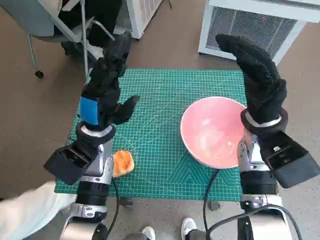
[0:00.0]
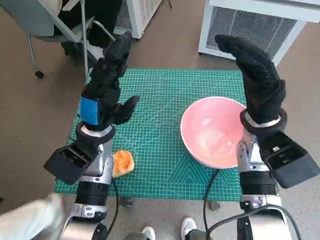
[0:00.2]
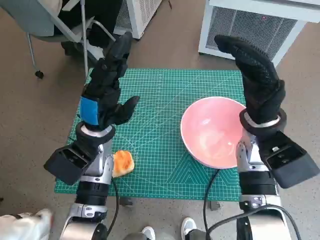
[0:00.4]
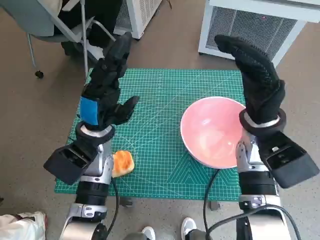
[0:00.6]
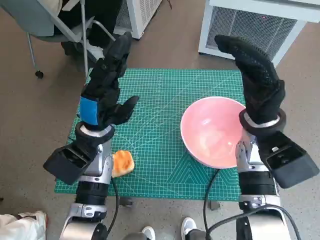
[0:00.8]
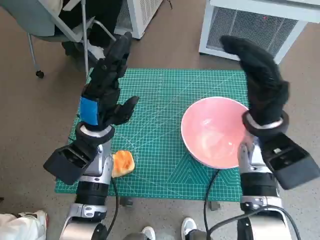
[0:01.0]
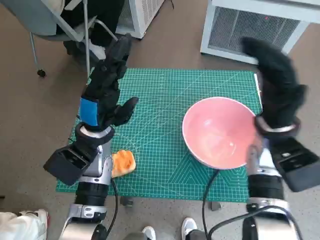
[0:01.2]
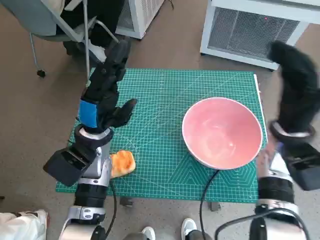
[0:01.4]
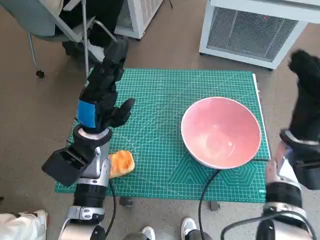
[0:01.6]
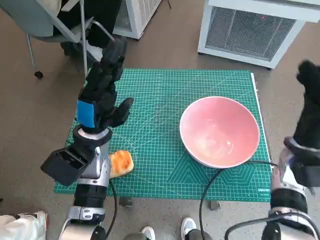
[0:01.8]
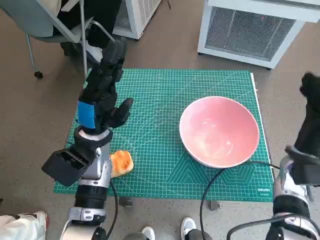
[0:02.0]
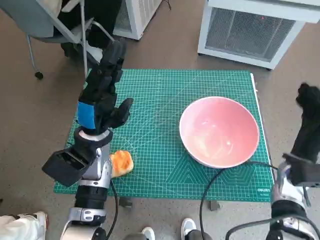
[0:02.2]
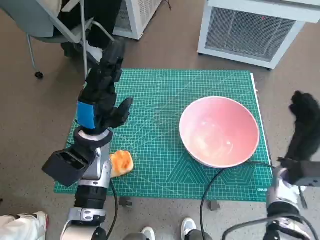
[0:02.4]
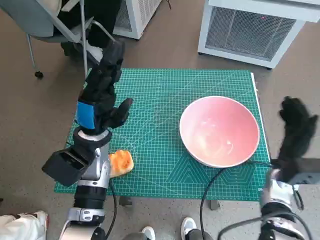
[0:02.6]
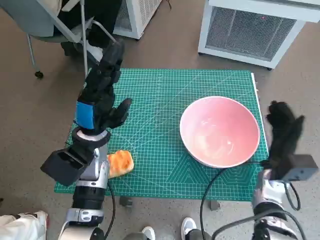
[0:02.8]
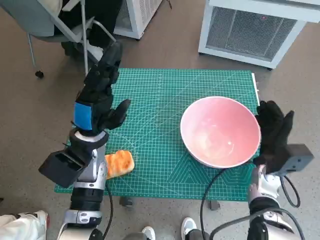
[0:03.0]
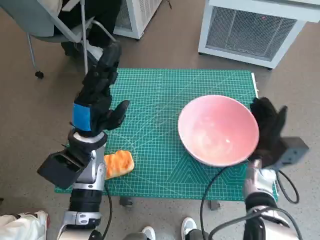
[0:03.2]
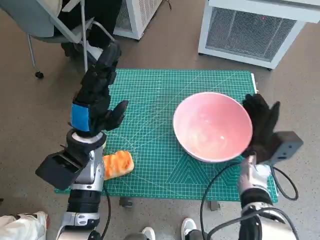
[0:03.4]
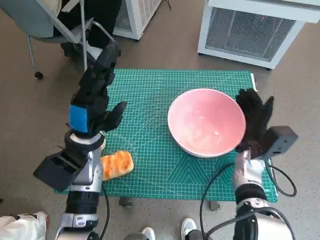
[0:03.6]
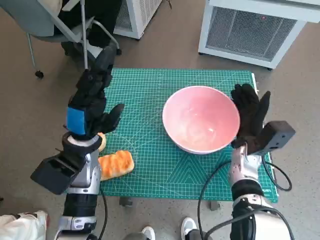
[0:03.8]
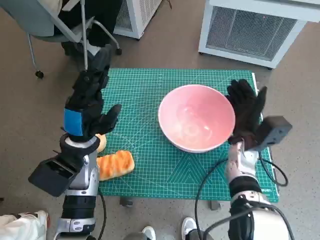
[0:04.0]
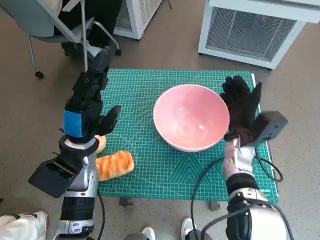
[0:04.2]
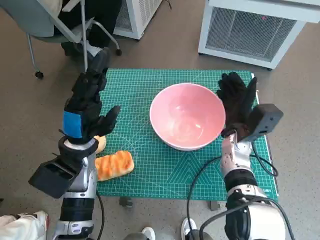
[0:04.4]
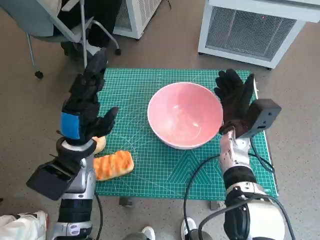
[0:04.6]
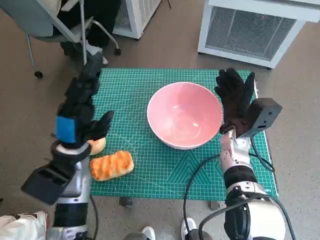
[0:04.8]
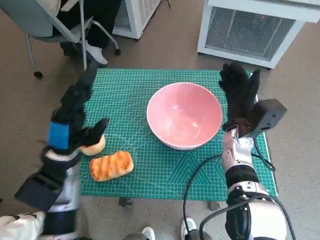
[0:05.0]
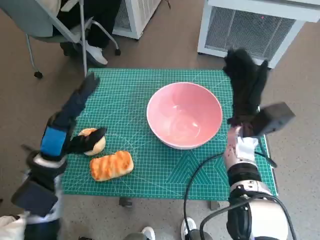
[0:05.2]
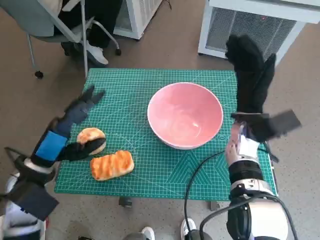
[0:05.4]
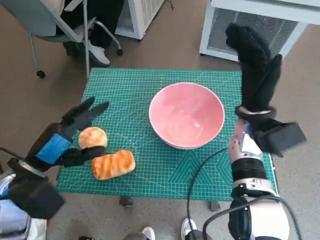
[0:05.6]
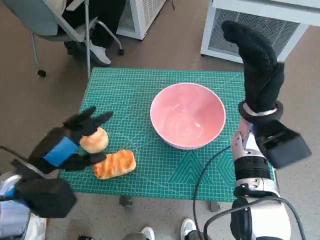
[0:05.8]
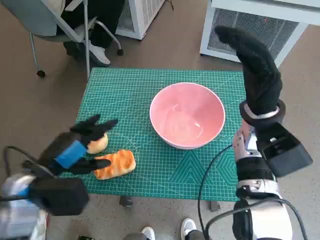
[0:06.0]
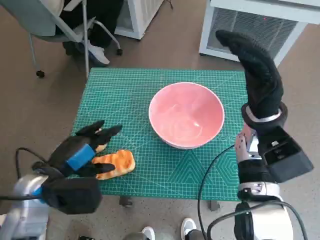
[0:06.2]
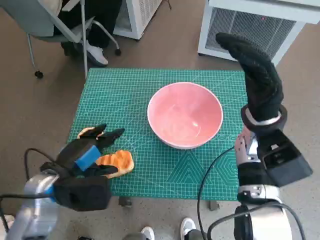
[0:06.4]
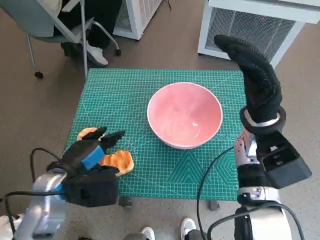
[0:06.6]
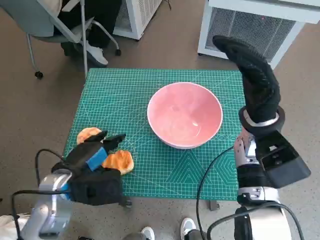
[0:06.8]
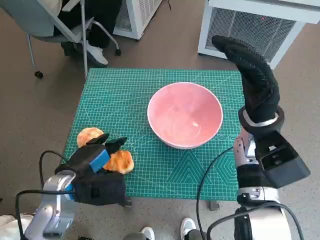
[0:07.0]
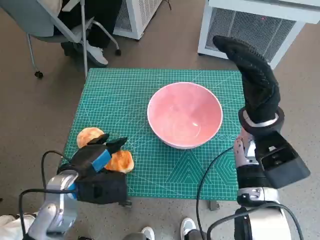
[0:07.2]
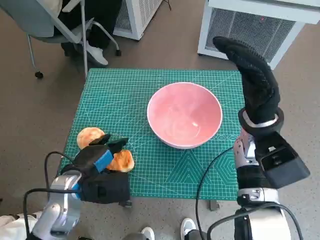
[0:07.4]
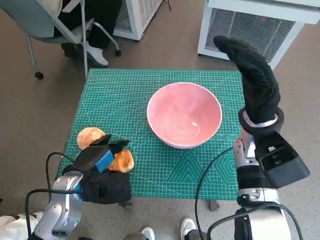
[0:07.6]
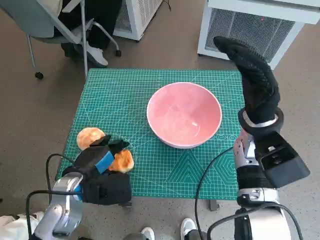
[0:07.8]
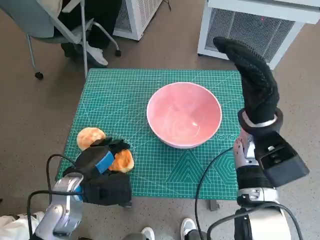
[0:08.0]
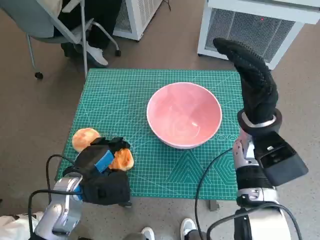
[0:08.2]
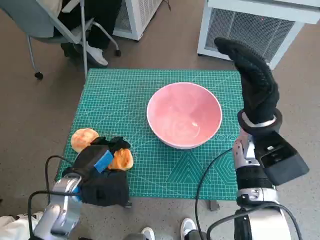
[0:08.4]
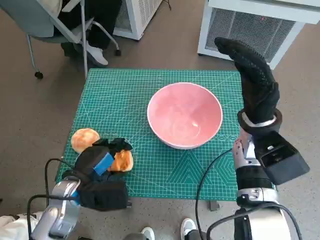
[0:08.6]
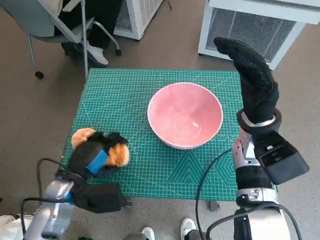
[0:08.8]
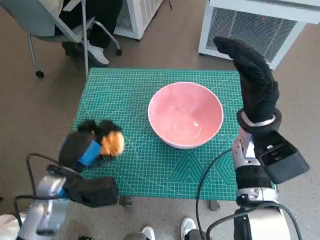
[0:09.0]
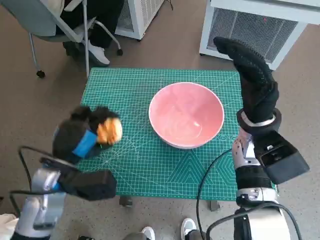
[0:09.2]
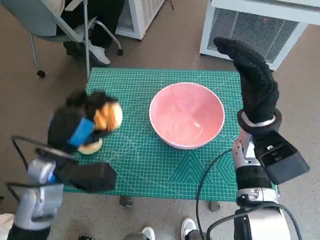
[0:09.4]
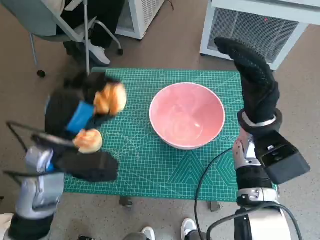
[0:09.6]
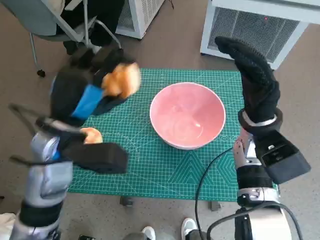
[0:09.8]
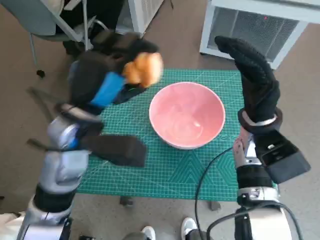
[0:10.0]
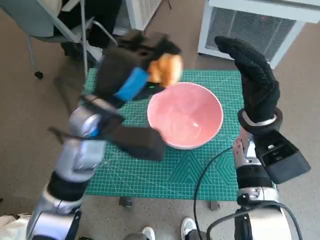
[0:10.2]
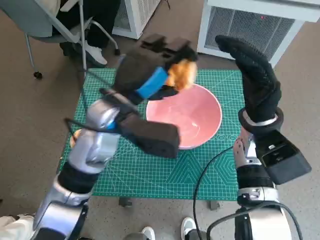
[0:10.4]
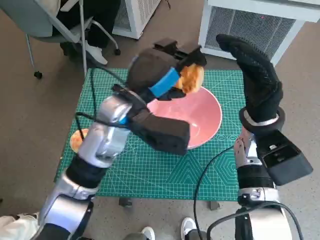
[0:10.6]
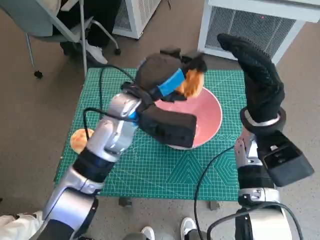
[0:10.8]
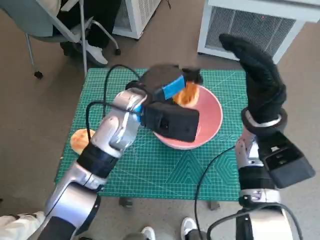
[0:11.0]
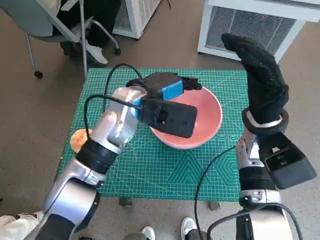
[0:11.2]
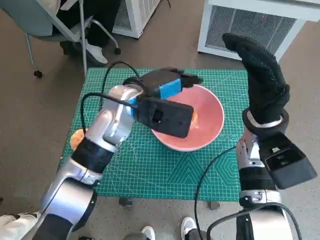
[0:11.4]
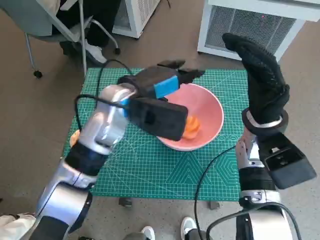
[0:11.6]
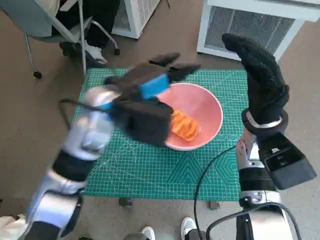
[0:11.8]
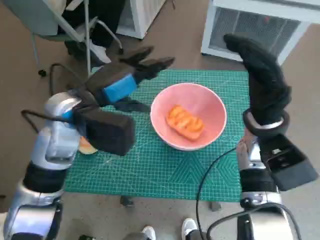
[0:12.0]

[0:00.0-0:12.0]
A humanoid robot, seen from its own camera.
Task of the whole recording: Push the bowl to the center of the table and put the bread into the bowl.
Step, 0:00.0 to 0:05.0: Move the pink bowl to the center of table with right hand.
Step, 0:05.2 to 0:08.0: Grasp the long bread with left hand.
Step, 0:08.2 to 0:11.2: Place the long bread in pink bowl with left hand.
0:01.6 to 0:03.0: The right hand travels downward by roughly 10 cm.
0:03.0 to 0:04.4: The right hand is displaced to the left and forward by roughly 10 cm.
0:04.4 to 0:06.0: The right hand is displaced upward by some 10 cm. The left hand heads backward and to the left, covering some 10 cm.
0:06.0 to 0:07.6: The left hand shifts some 5 cm downward.
0:09.0 to 0:10.4: The left hand heads upward, to the right and forward, covering roughly 20 cm.

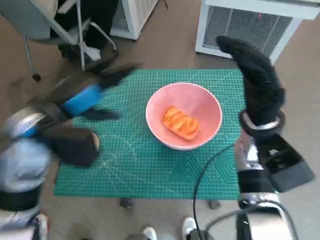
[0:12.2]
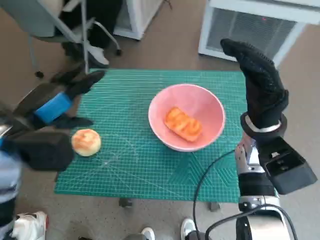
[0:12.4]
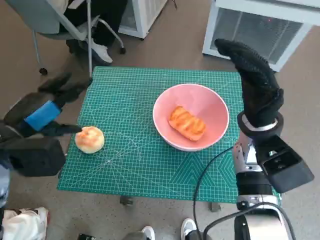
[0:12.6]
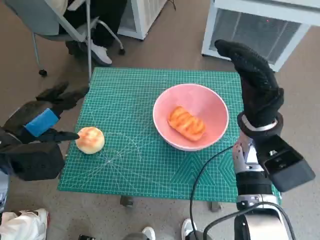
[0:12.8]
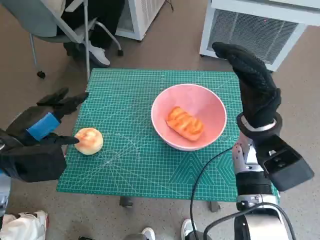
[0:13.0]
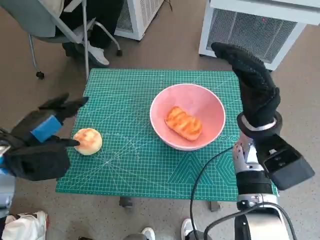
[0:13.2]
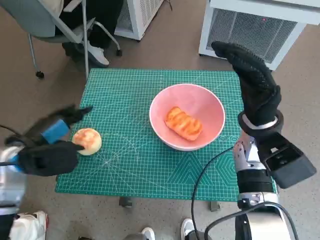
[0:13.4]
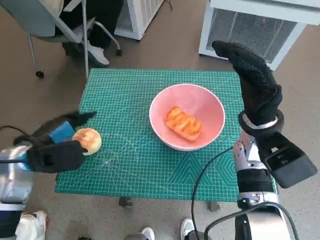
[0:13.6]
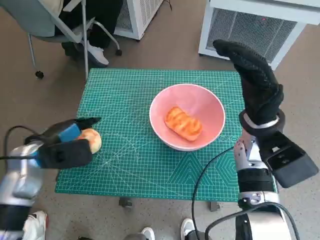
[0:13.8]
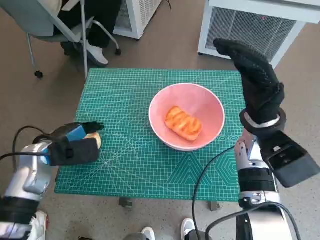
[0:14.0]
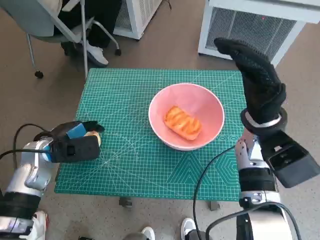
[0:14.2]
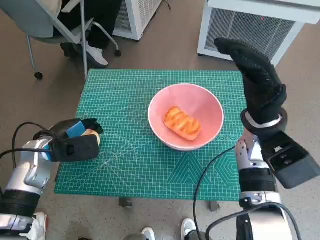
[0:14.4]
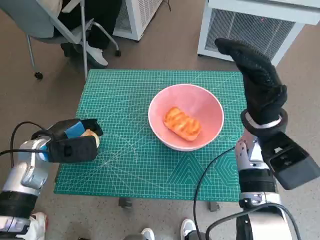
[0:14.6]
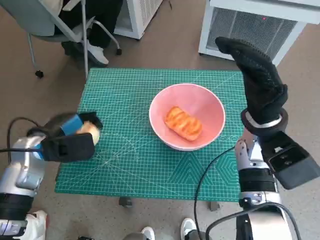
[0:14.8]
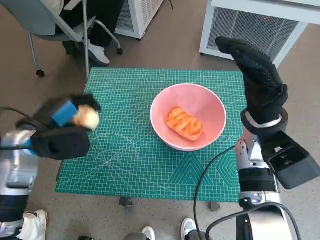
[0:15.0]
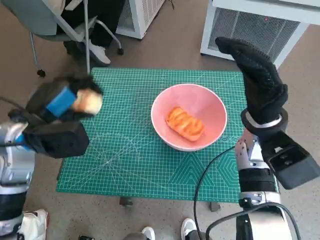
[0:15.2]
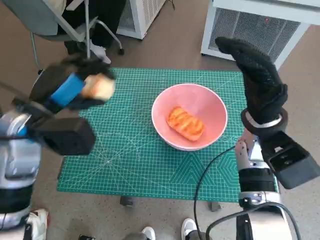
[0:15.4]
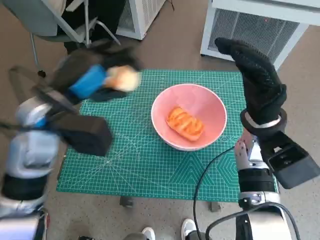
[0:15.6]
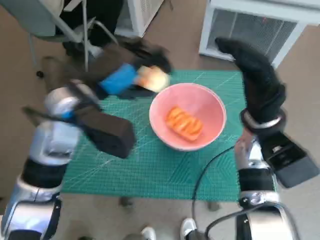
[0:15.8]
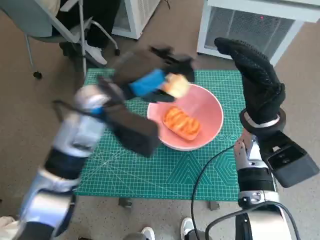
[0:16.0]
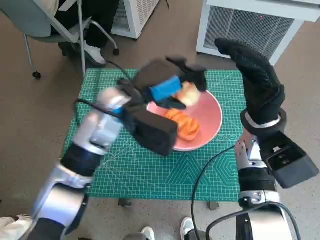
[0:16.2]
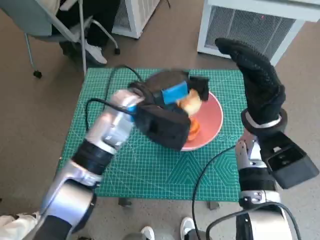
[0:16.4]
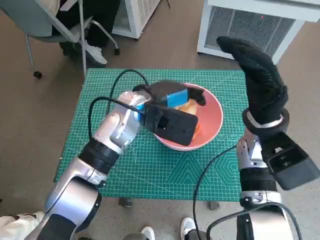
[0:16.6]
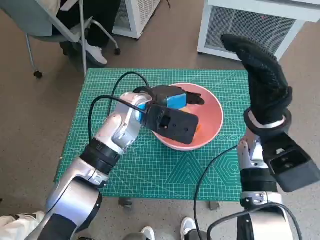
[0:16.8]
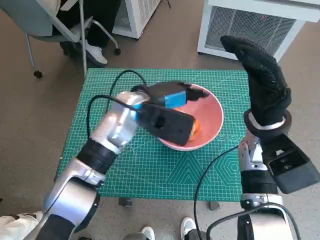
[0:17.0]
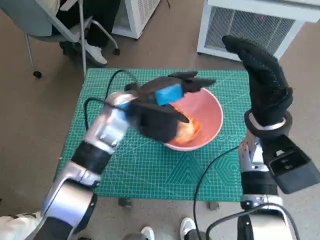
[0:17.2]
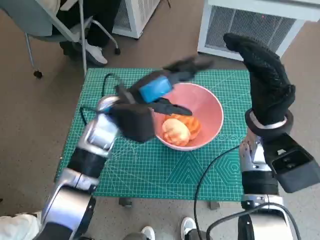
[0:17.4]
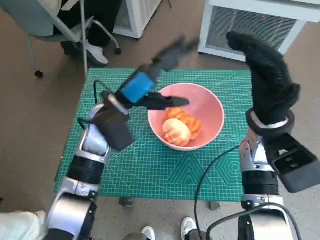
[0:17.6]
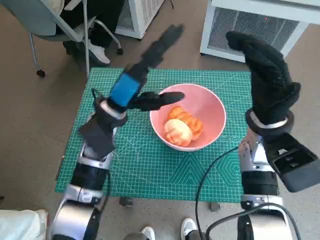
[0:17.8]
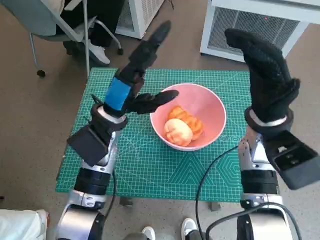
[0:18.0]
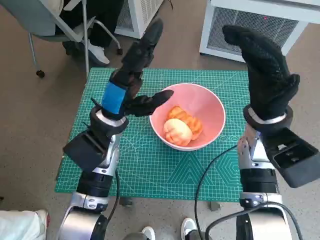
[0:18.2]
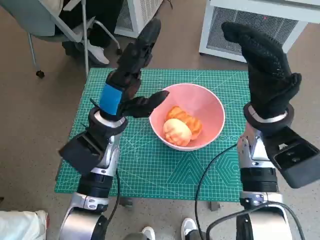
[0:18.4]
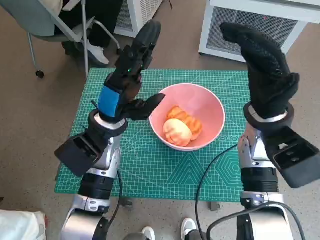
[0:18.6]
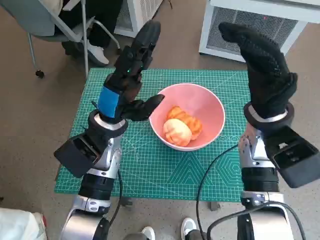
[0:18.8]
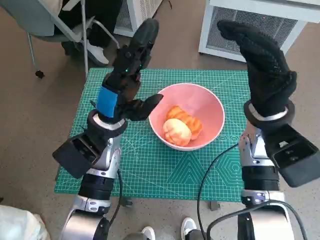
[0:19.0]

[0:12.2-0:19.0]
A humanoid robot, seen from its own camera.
Task of the whole recording: Push the bowl to the center of the table and put the bread into the bowl.
Step, 0:12.2 to 0:14.2: Grasp the round bread with left hand.
Step, 0:14.4 to 0:17.2: Place the round bread in pink bowl with left hand.
0:12.2 to 0:13.6: The left hand moves downward and to the left, approximately 10 cm.
0:13.6 to 0:15.0: There are only small adjustments of the hands.
0:15.0 to 0:16.2: The left hand heads to the right, covering approximately 15 cm.

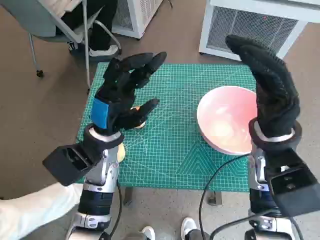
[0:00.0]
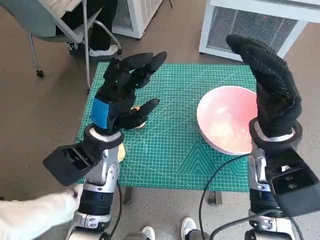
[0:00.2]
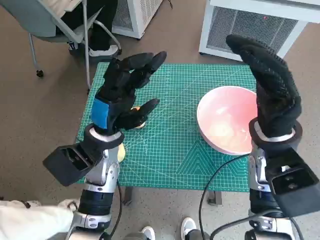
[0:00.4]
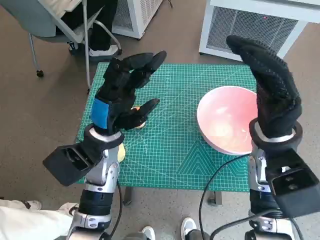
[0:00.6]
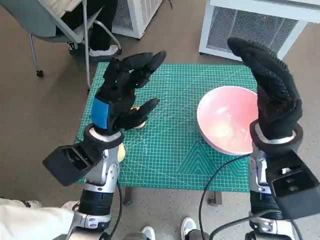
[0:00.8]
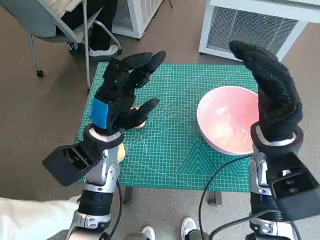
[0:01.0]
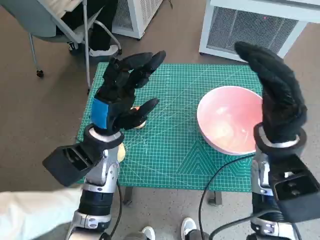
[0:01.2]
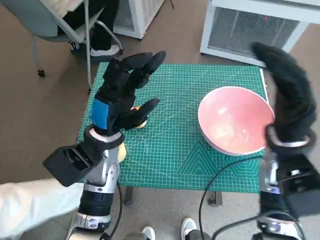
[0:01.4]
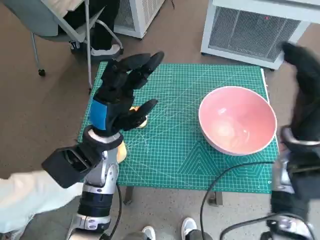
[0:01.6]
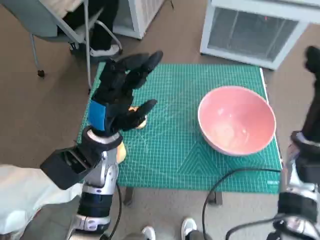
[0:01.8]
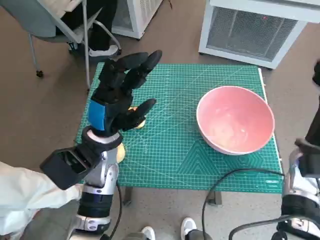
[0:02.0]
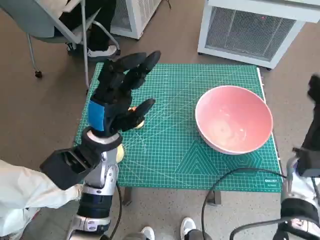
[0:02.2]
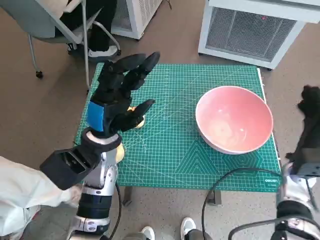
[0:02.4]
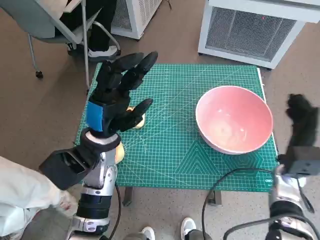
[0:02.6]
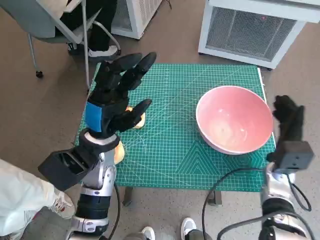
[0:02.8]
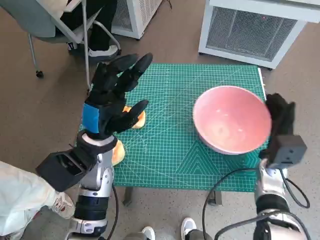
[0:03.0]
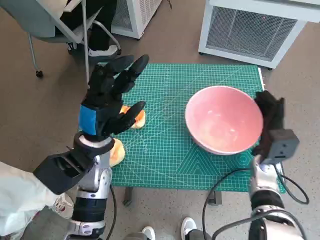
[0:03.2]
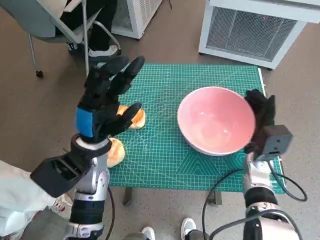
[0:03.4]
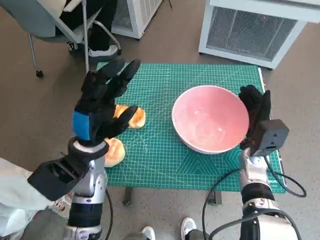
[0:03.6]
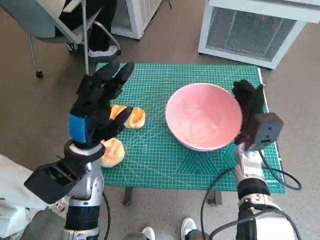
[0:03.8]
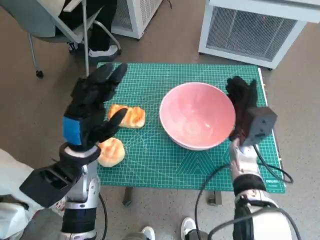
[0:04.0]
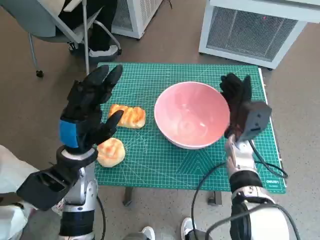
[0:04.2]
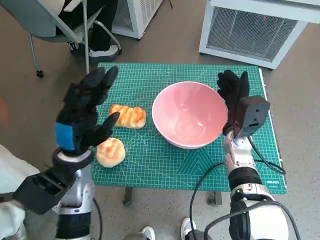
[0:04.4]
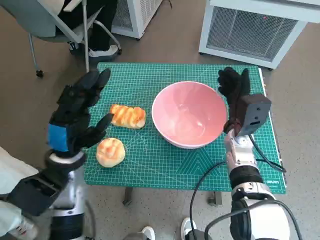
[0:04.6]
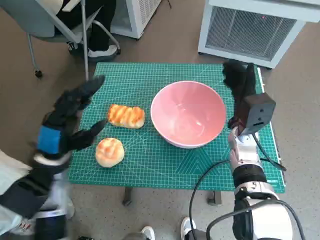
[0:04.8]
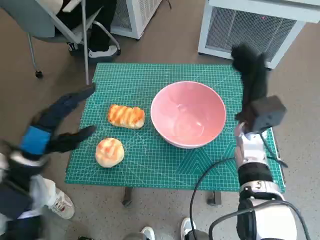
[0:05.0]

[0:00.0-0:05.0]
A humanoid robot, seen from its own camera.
Task of the whole recording: Push the bowl to the center of the table and put the bread into the bowl.
Step, 0:00.0 to 0:04.6: Move the pink bowl to the center of table with right hand.
0:01.6 to 0:03.4: The right hand heads downward, covering some 10 cm.
0:03.4 to 0:05.0: The right hand heads upward, covering roughly 5 cm, while the left hand goes about 10 cm to the left.
